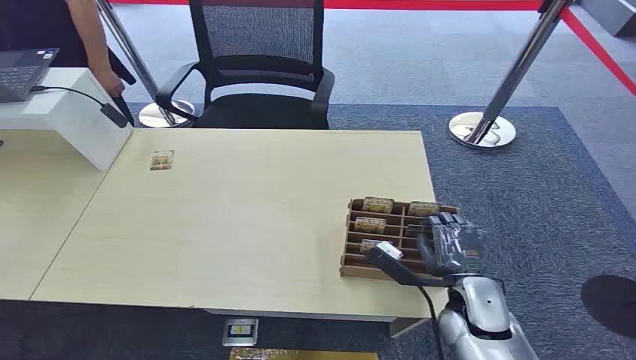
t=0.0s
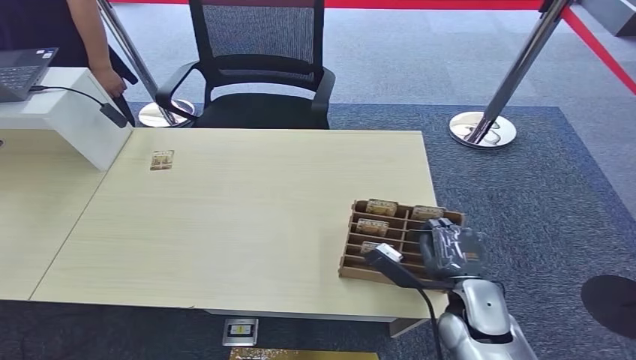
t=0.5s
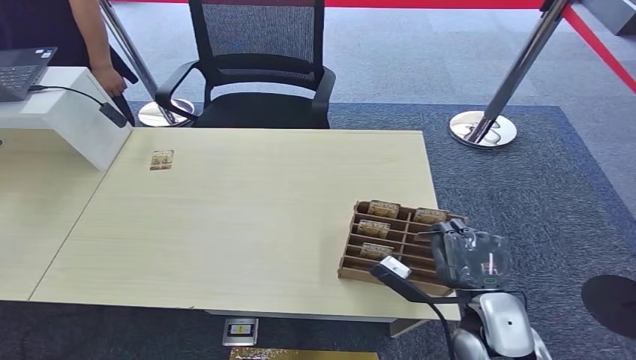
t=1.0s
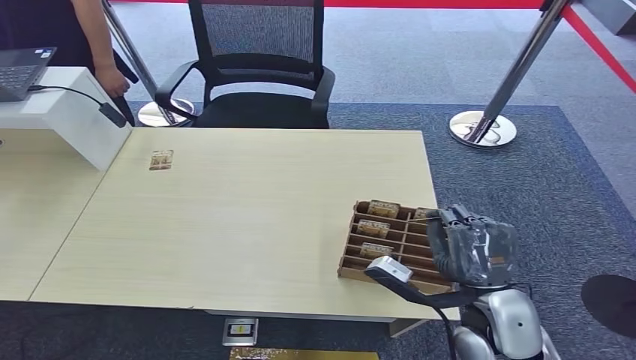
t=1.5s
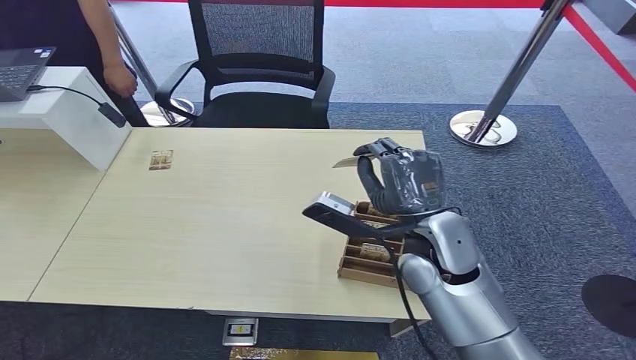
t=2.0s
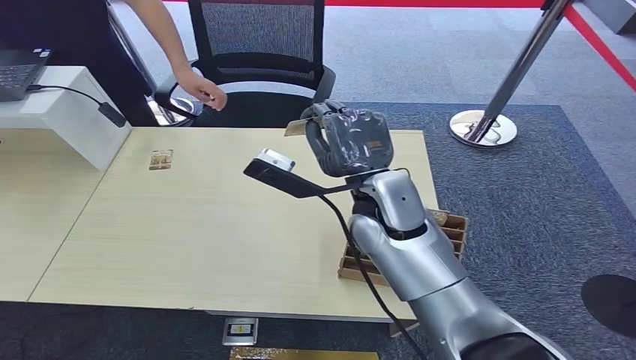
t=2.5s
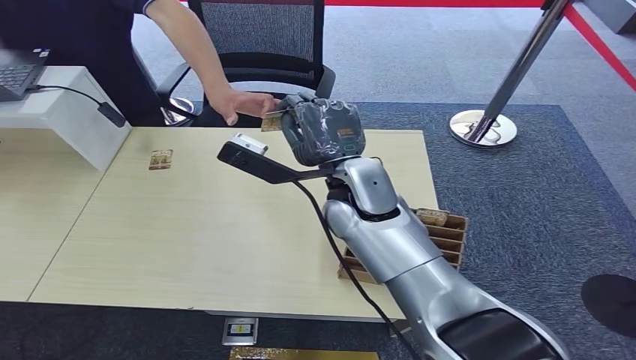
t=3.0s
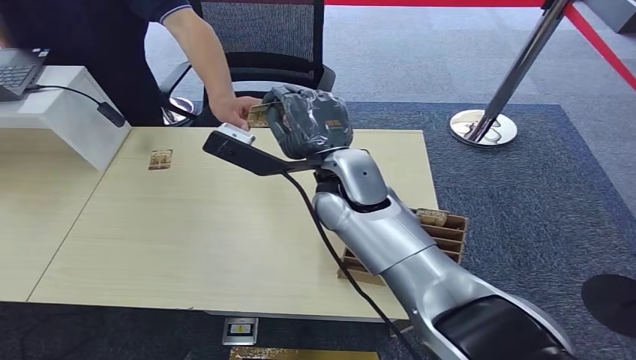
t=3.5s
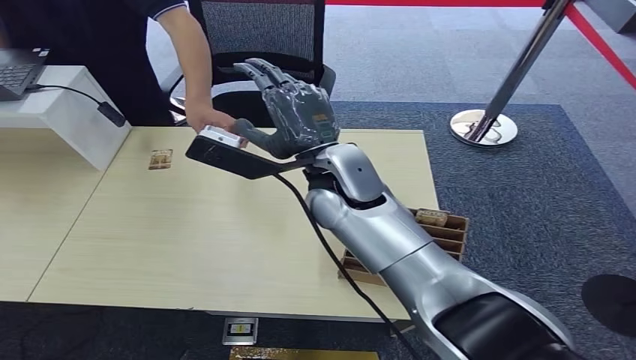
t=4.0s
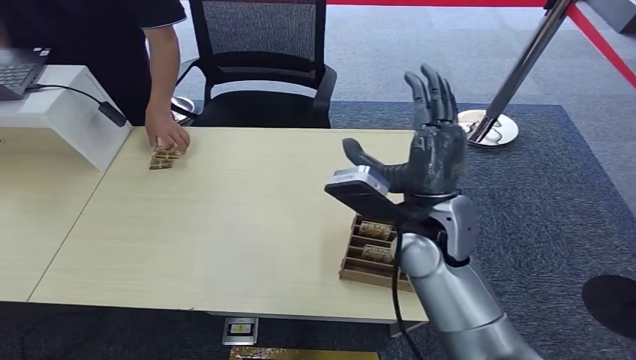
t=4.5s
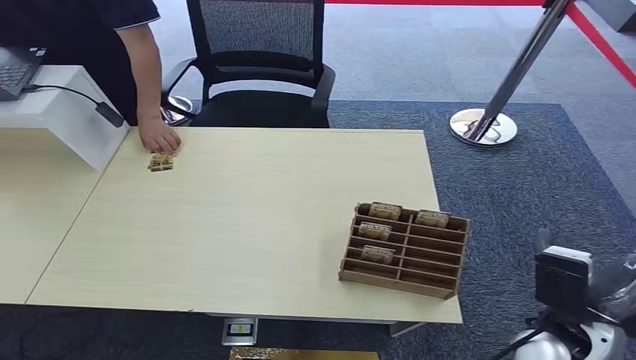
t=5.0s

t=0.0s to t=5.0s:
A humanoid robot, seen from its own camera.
Step, t=0.0s to t=2.0s: Pick up the key card from the card box.
Step, t=2.5s to t=4.5s: Hand the key card to the target.
